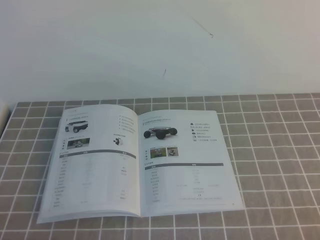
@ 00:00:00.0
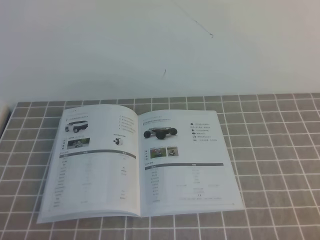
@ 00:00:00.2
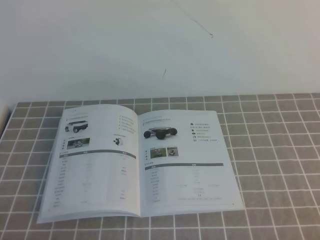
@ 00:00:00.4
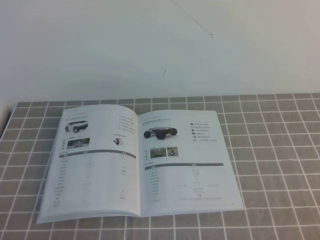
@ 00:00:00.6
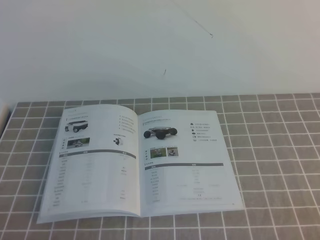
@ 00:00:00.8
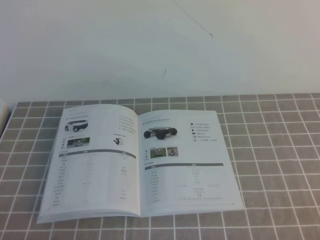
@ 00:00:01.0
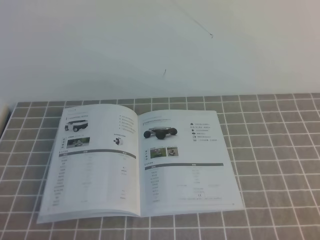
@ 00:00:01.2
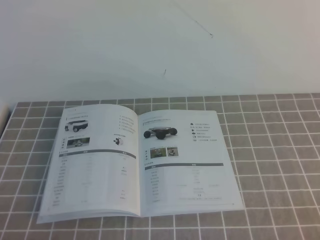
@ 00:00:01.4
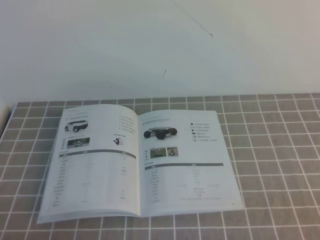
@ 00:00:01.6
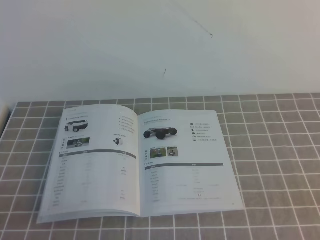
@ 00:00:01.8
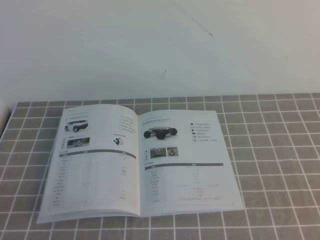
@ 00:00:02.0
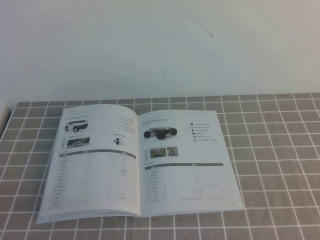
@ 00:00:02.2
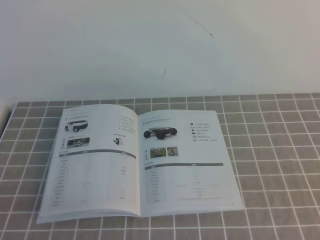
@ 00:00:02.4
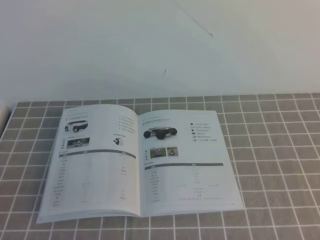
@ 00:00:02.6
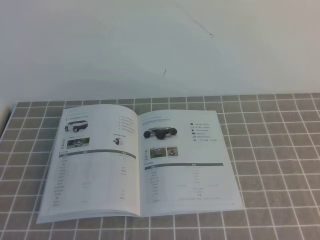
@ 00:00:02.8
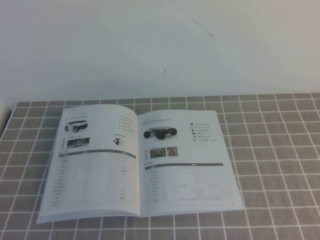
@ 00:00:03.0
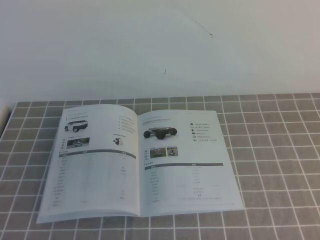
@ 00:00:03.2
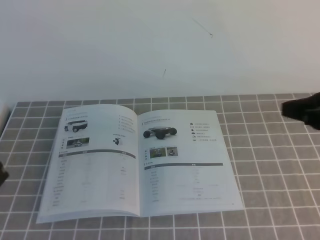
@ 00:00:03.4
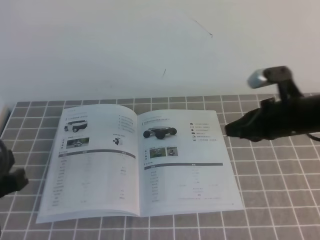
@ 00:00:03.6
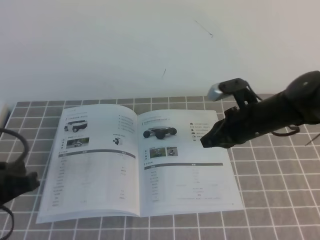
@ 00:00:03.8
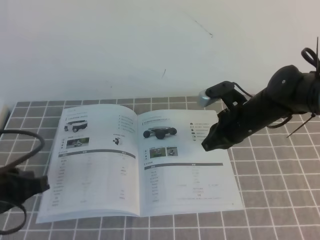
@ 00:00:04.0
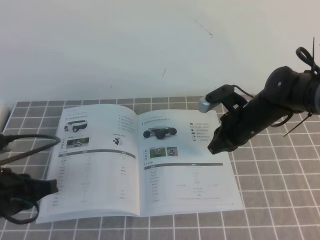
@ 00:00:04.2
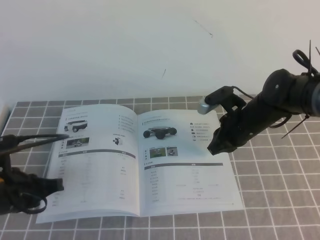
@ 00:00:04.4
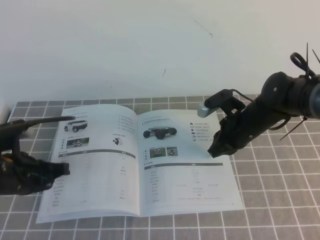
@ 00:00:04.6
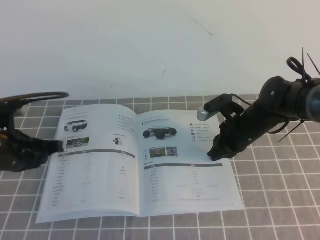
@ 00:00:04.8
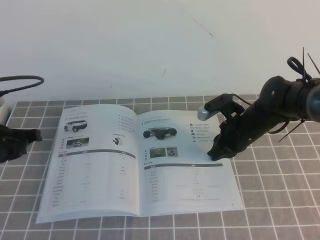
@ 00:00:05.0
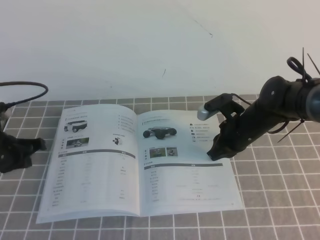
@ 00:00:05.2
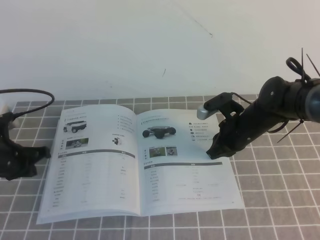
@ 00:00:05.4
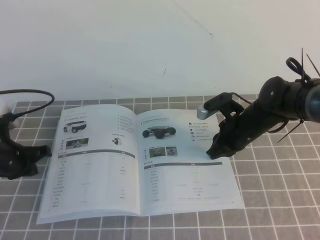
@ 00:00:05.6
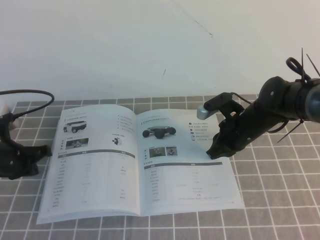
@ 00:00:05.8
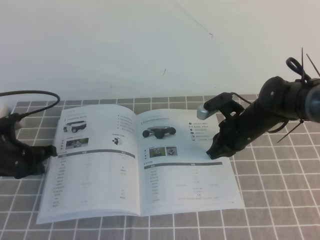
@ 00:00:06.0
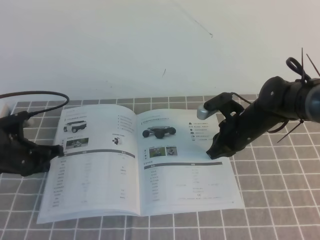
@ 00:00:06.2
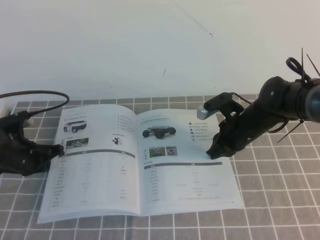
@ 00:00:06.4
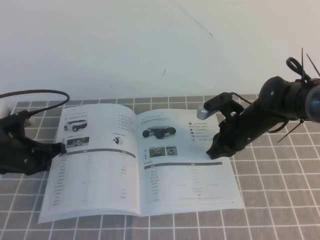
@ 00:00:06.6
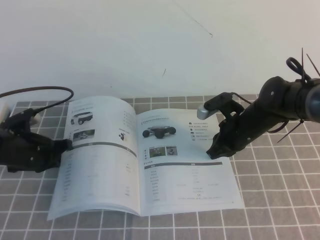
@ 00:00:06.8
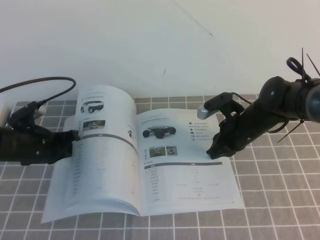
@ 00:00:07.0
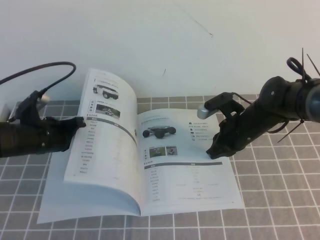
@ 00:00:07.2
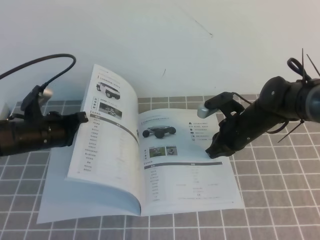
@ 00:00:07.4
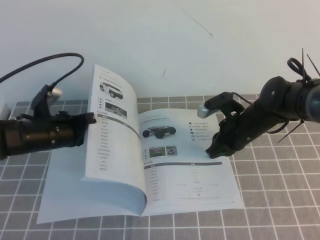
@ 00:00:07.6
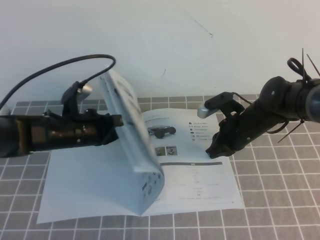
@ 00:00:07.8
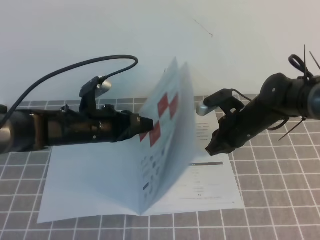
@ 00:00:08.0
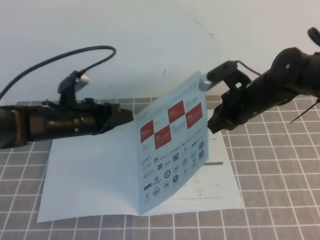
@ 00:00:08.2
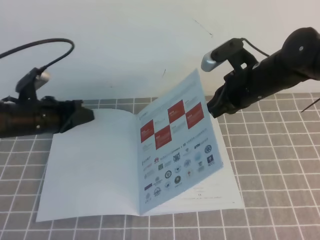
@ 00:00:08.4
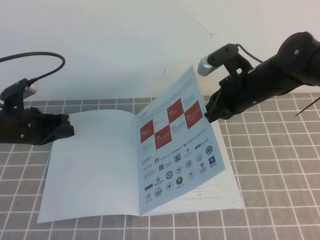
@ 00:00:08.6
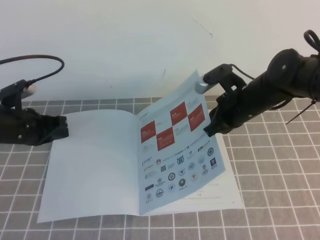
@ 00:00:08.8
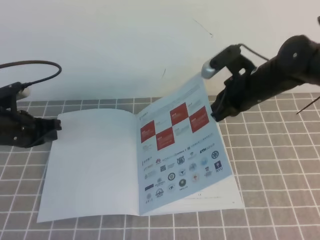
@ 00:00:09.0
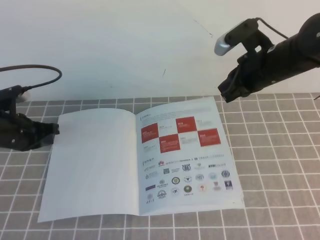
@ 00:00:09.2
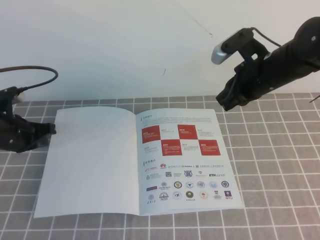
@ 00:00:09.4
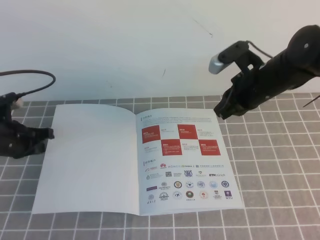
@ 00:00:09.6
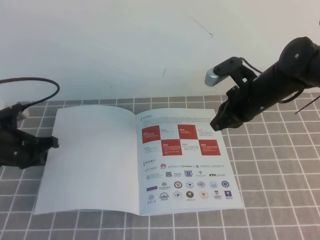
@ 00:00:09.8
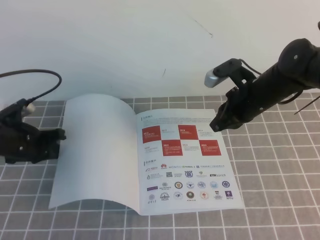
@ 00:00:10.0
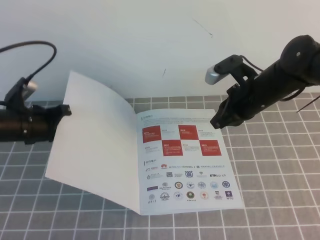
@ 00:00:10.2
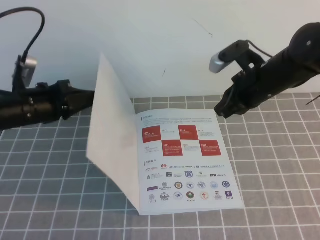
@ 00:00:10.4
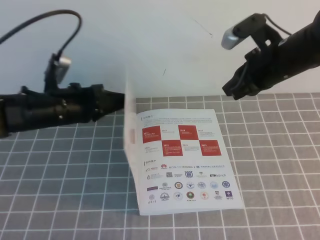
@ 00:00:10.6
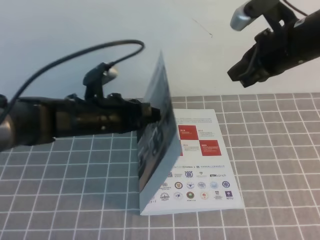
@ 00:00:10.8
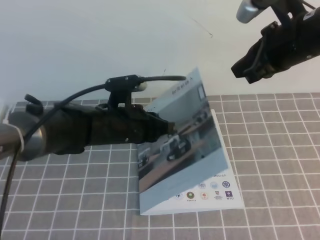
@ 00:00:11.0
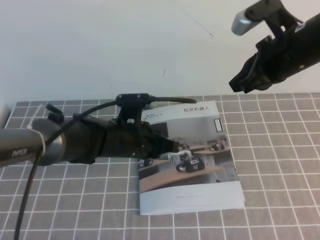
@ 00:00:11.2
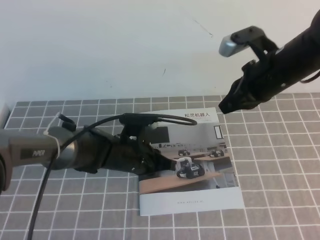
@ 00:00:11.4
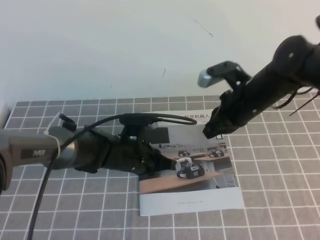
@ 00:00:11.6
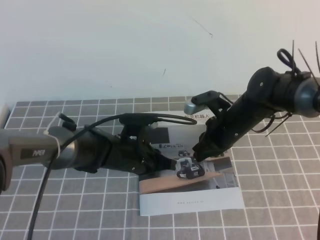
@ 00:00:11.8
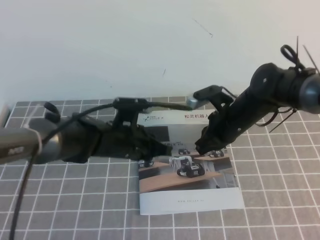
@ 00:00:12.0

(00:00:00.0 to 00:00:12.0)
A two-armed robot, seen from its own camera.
Task of the whole recording: on the grey tablecloth, hold the book with one hand and close it with the other.
00:00:03.0 - 00:00:04.4: The left gripper heads forward and downward, covering roughly 20 cm, while the right gripper goes roughly 40 cm forward, downward and to the left.
00:00:04.4 - 00:00:06.0: The left gripper is displaced forward, downward and to the left by some 15 cm.
00:00:06.0 - 00:00:07.6: The left gripper heads to the right, covering roughly 10 cm.
00:00:07.6 - 00:00:09.0: The right gripper shifts approximately 10 cm upward. The left gripper goes about 5 cm to the left.
00:00:09.0 - 00:00:10.4: The left gripper moves some 5 cm.
00:00:10.4 - 00:00:12.0: The left gripper goes some 15 cm to the right; the right gripper heads downward, covering about 5 cm.

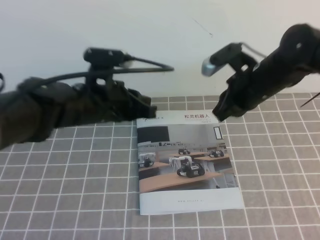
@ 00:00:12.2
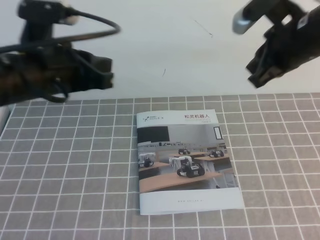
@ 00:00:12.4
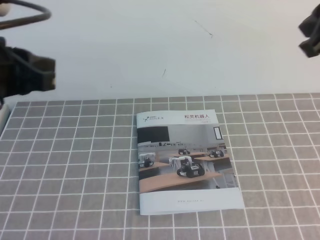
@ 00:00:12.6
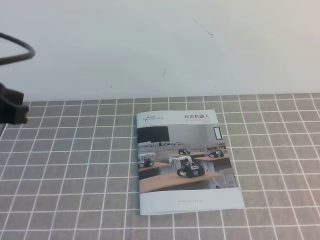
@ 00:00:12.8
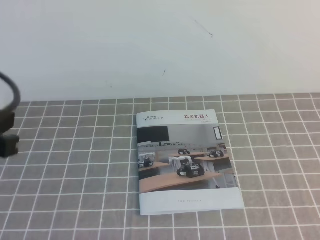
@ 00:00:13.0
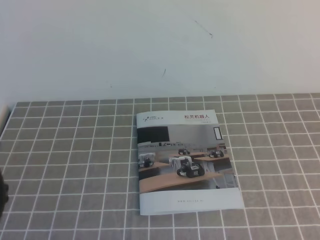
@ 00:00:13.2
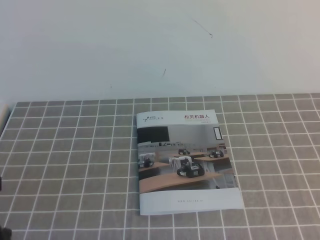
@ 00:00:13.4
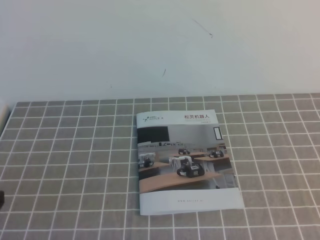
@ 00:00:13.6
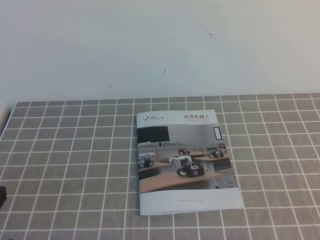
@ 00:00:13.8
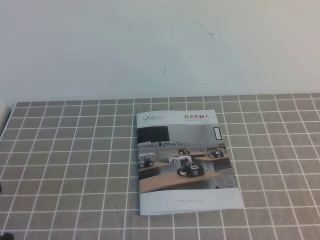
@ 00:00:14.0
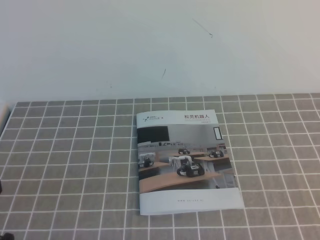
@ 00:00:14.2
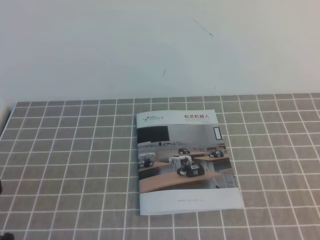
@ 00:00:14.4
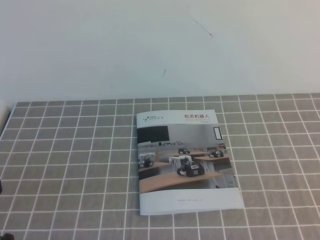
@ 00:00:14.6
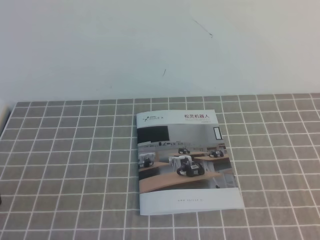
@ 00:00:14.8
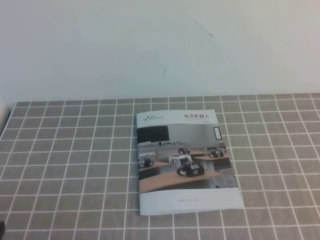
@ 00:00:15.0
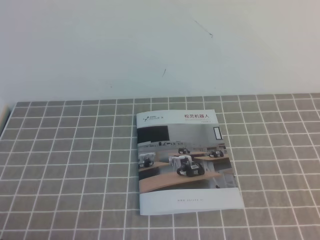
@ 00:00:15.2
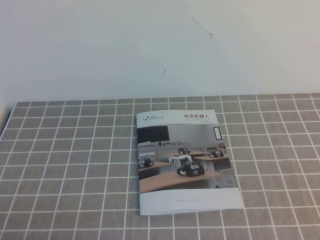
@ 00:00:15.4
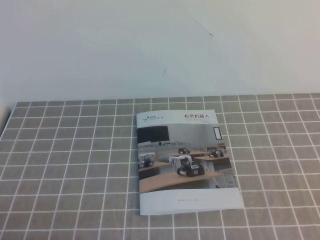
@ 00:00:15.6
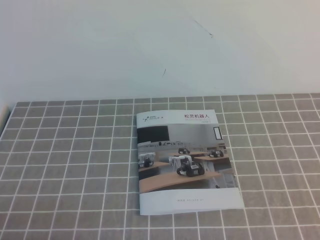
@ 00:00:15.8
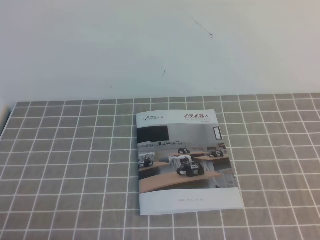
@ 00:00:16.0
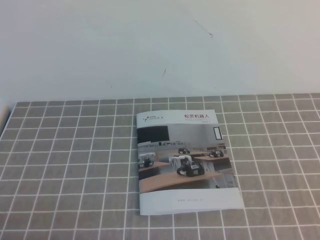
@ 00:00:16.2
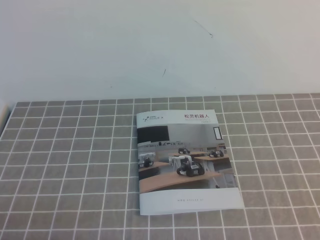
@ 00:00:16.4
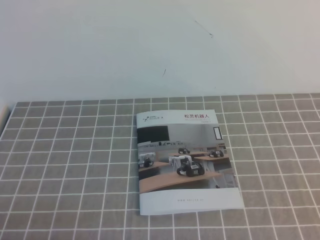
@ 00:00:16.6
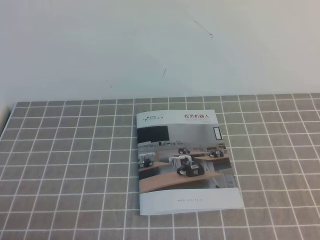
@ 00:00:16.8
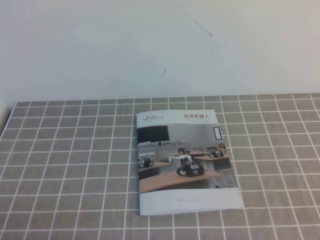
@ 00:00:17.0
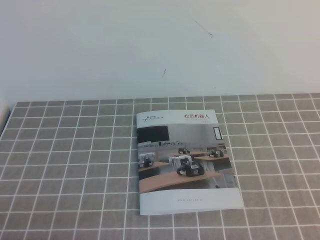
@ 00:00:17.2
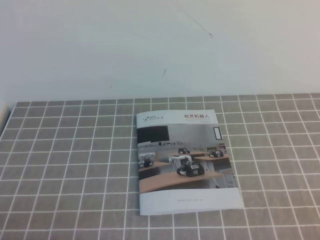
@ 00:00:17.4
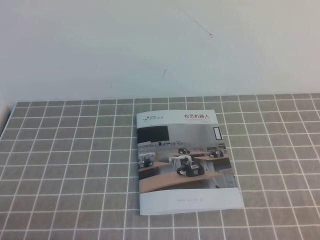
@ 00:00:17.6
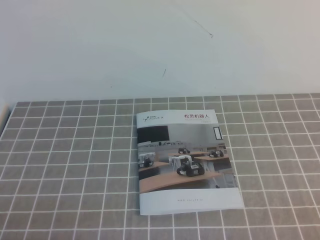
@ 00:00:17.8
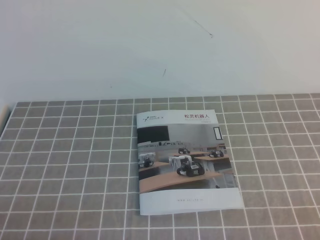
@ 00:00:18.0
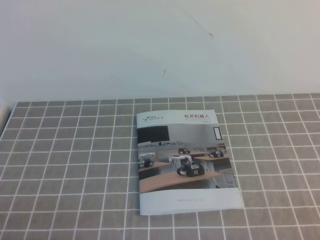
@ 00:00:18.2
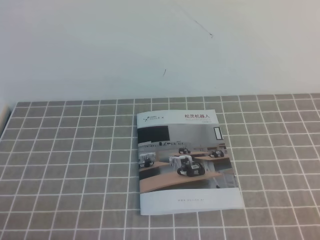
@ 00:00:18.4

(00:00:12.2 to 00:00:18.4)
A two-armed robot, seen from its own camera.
Task of the whole recording: on the grey tablecloth, hold the book with one hand and close it with the other.
Step, 00:00:12.2 - 00:00:18.4: Close the open book.
00:00:12.2 - 00:00:13.8: The left gripper travels backward and to the left by roughly 30 cm. The right gripper goes some 35 cm backward and to the right.
